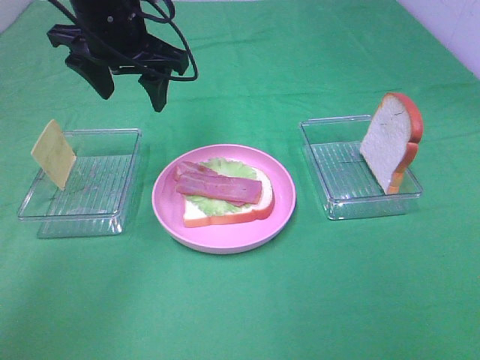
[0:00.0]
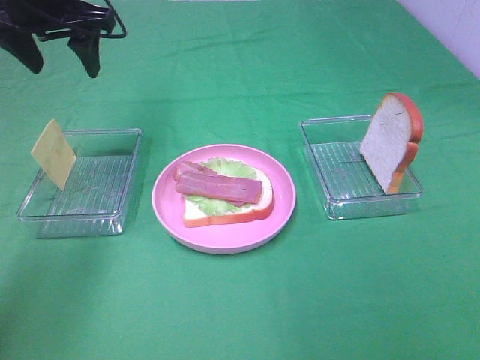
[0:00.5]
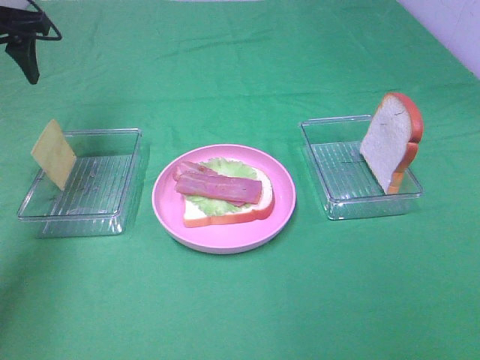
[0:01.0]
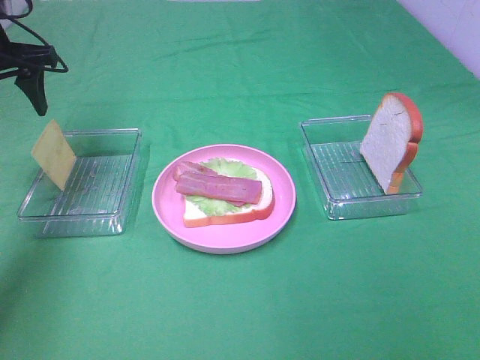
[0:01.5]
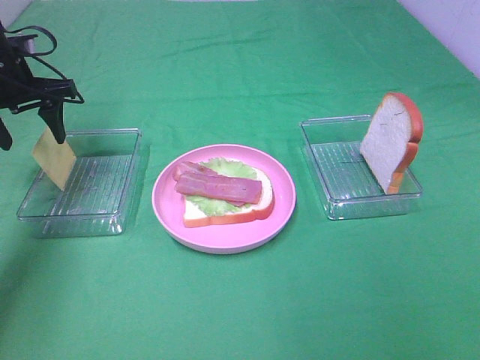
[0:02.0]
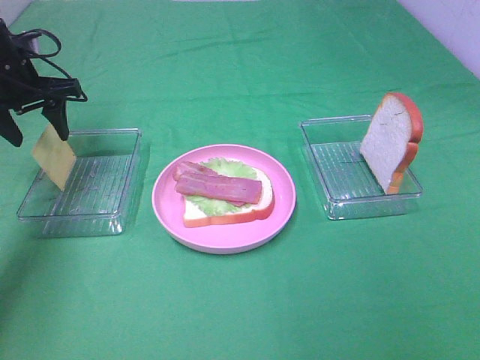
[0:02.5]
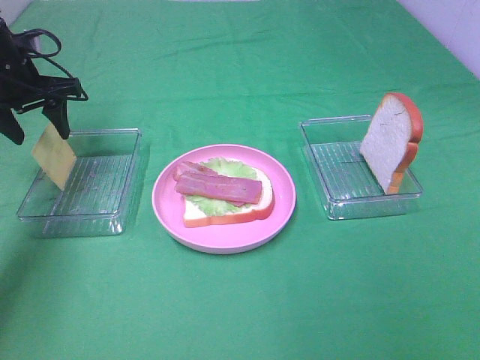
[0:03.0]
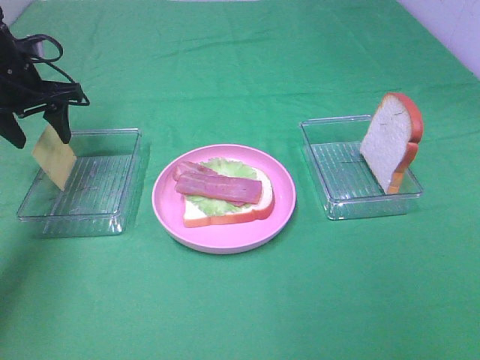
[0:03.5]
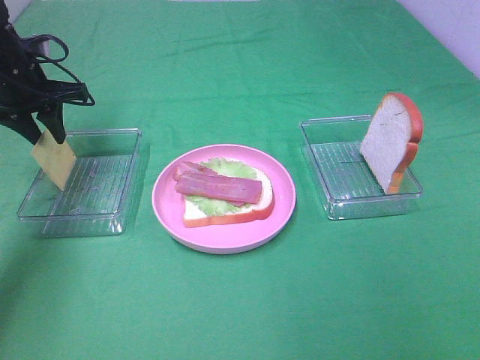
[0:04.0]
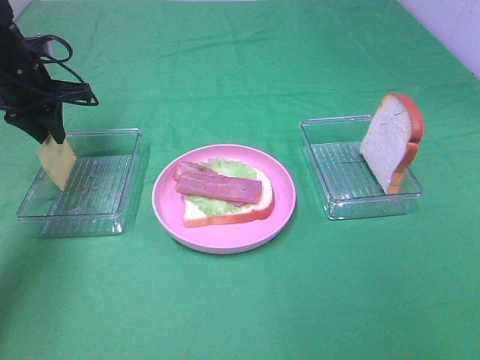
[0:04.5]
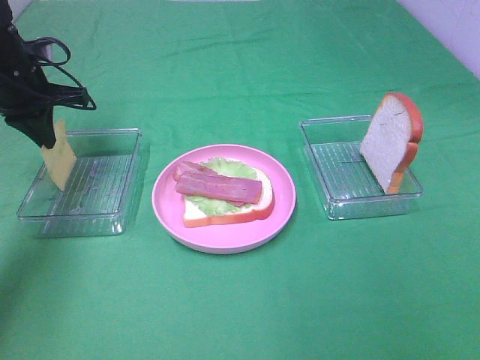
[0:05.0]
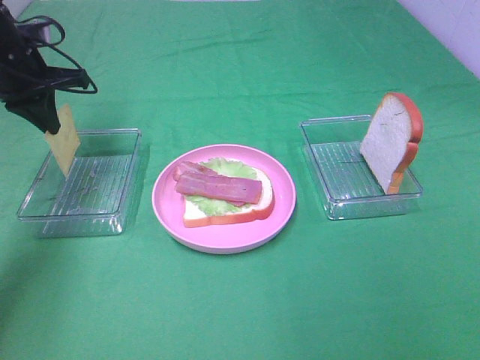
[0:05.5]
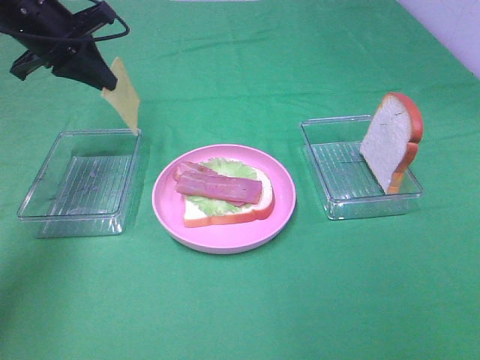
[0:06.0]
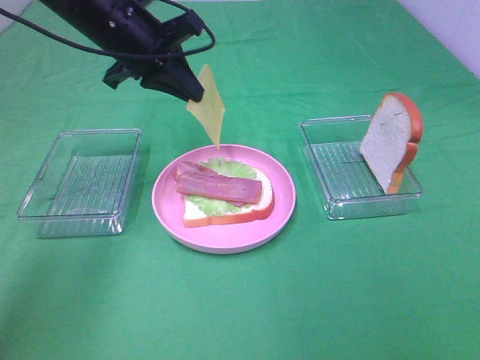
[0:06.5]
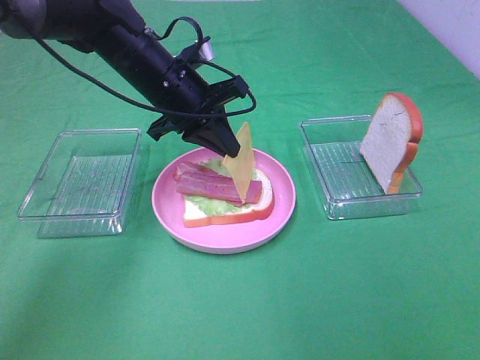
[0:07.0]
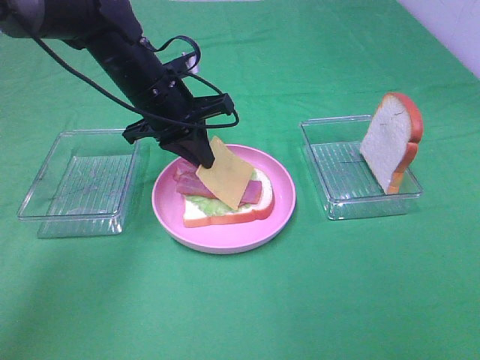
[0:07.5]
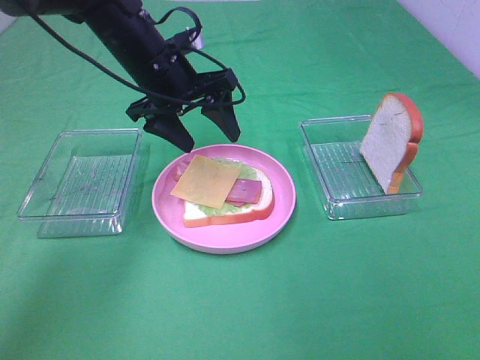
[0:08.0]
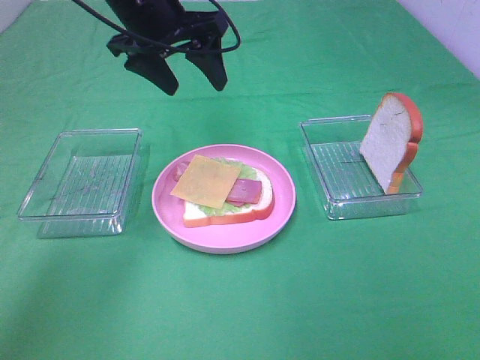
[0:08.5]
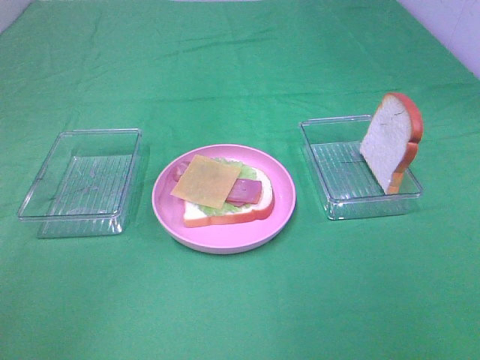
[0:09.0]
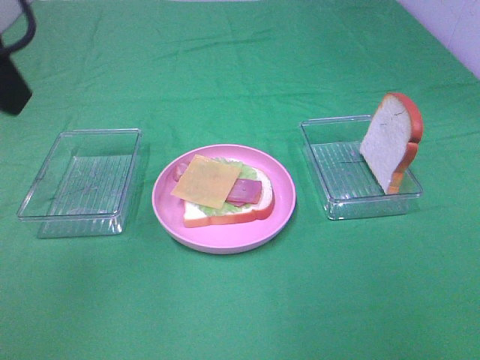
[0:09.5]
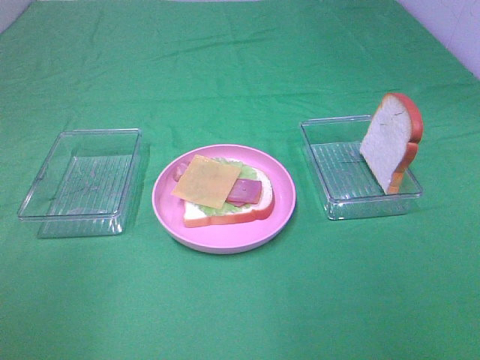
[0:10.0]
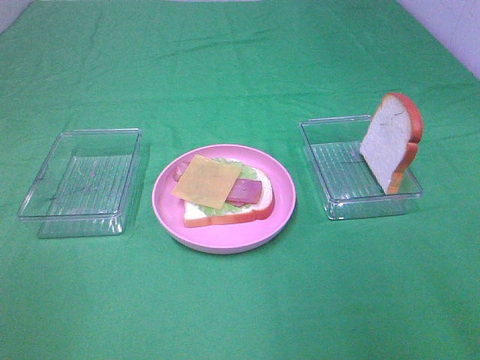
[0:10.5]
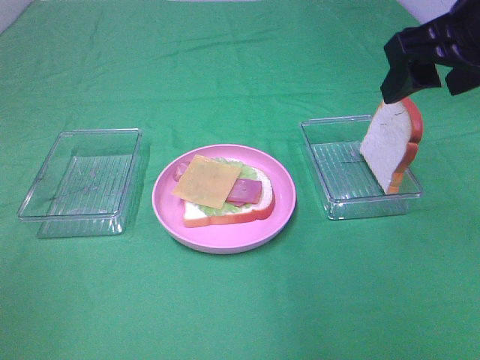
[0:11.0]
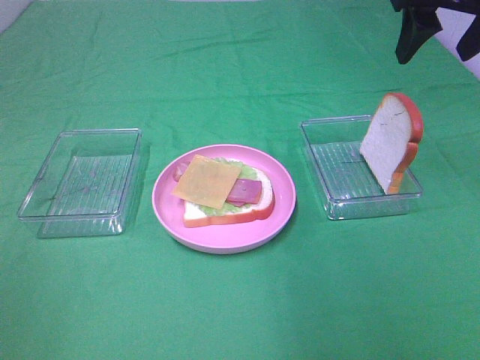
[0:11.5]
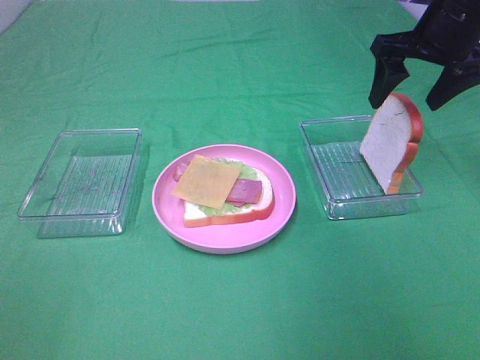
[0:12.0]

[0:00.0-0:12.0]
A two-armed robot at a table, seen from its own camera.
Task of the whole recording: Make sandwiches.
Step, 0:00.0 to 0:05.0: Left hand:grab the cheese slice.
Step, 0:05.5 to 0:08.0: Left hand:place the cheese slice on top of the bacon.
0:00.0 to 0:02.0: The left gripper moves to the left and downward, about 20 cm.
0:02.0 to 0:04.0: The left gripper closes up.
0:04.0 to 0:06.0: The left gripper heads upward and to the right, covering about 10 cm, and closes up.
0:06.0 to 0:08.0: The left gripper heads to the right, covering about 15 cm, and opens.
0:08.0 to 0:10.0: The left gripper heads backward and to the left, covering about 40 cm.
0:10.0 to 0:12.0: The right gripper shifts about 40 cm forward.

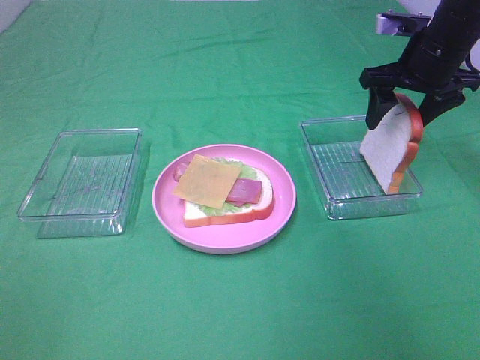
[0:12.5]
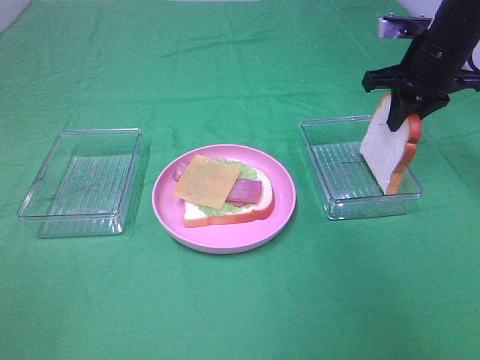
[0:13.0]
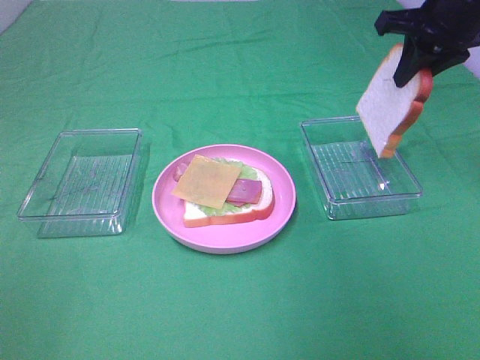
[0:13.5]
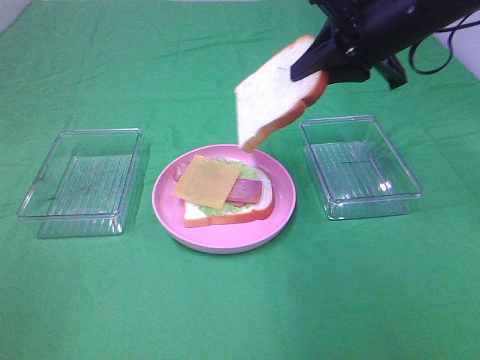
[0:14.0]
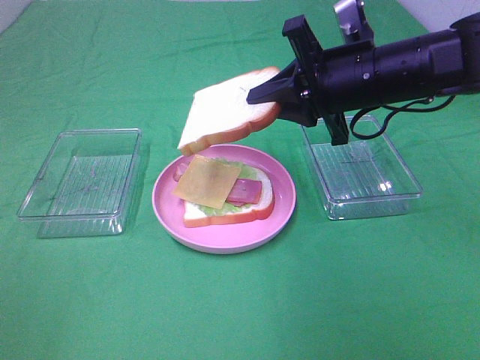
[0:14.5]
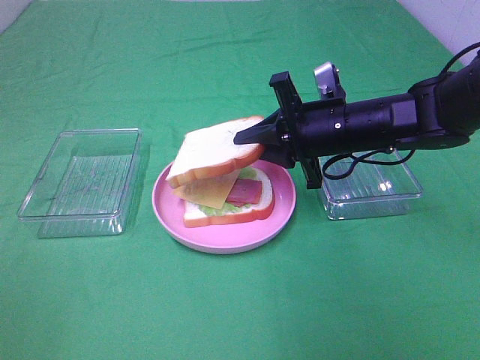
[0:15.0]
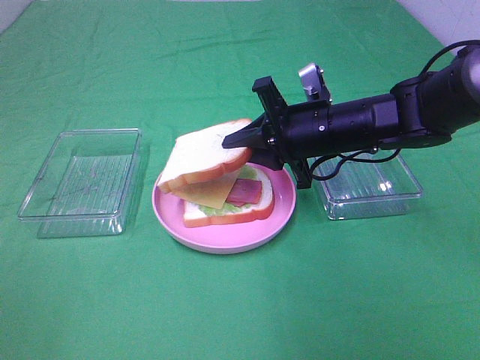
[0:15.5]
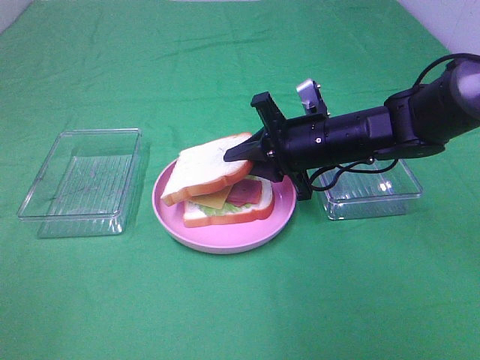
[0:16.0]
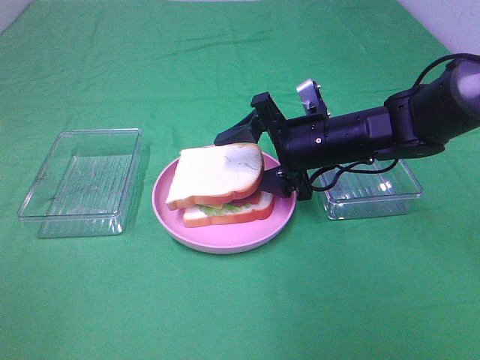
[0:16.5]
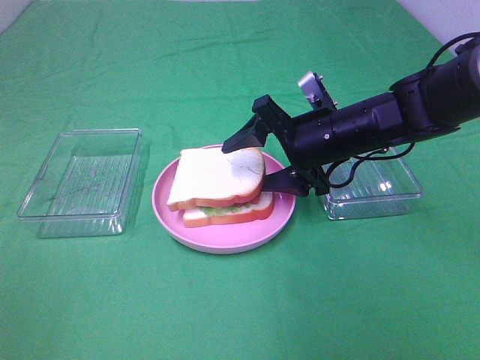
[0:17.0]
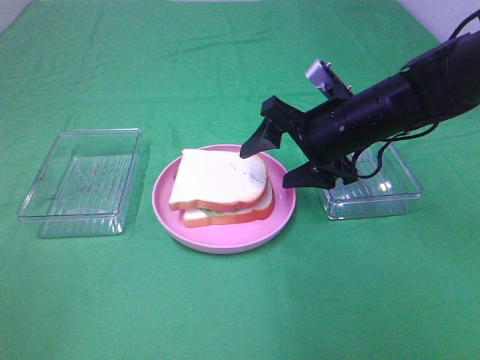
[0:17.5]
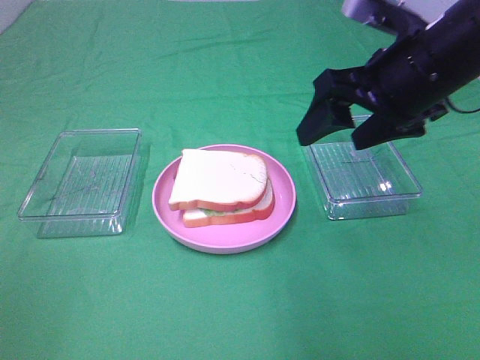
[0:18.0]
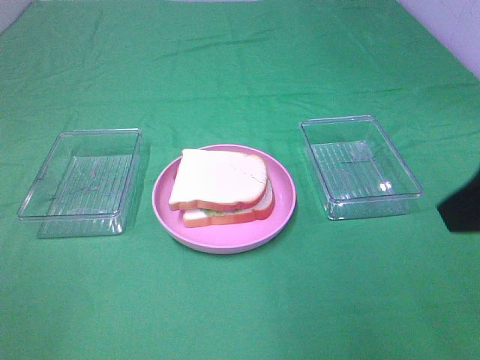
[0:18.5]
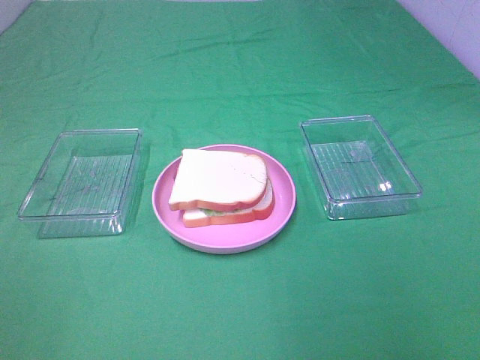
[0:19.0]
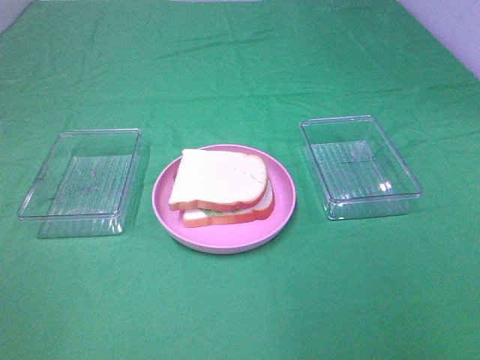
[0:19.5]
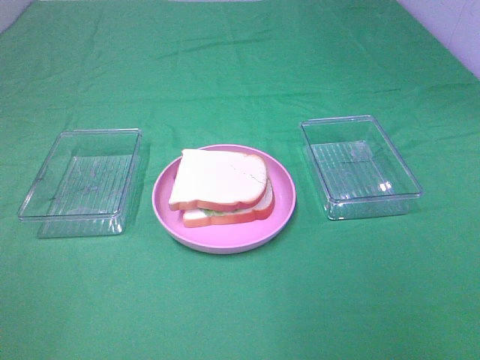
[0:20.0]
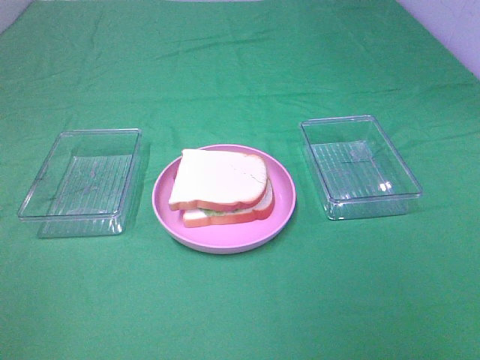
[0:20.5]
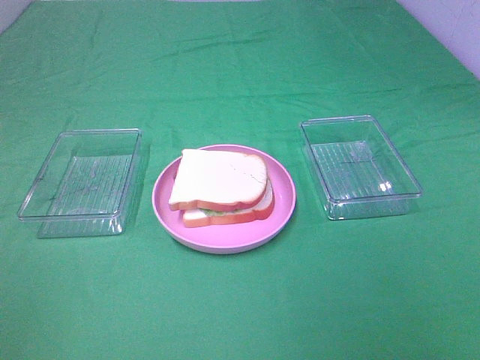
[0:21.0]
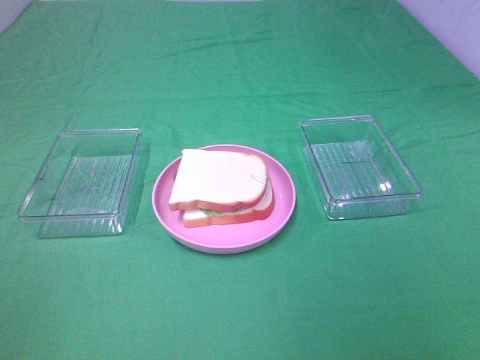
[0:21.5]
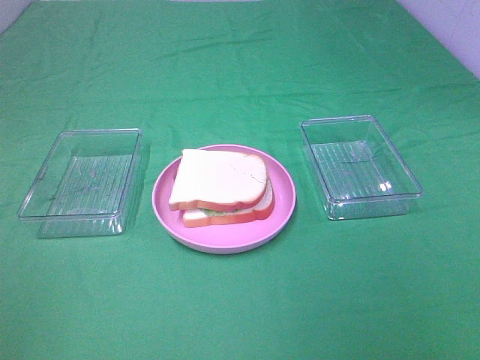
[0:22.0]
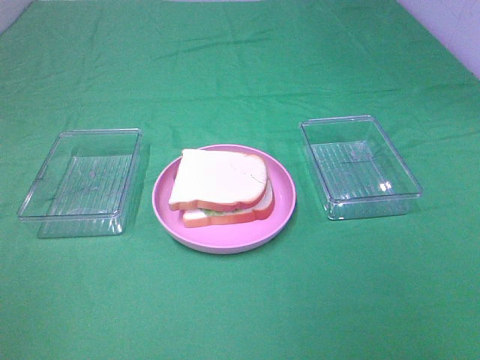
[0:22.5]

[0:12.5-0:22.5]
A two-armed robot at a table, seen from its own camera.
Task of the whole recording: Make sandwiches.
Step, 0:13.0 to 0:17.0: Right hand:place the bread slice on the cheese slice.
0:12.5 to 0:14.5: The right gripper goes some 15 cm to the left and backward, and closes its fingers.
0:14.5 to 0:16.5: The right gripper shifts about 10 cm downward, and opens.
0:16.5 to 0:18.5: The right gripper is displaced backward, upward and to the right by about 30 cm.
0:18.5 to 0:20.5: The right gripper shifts approximately 15 cm backward.

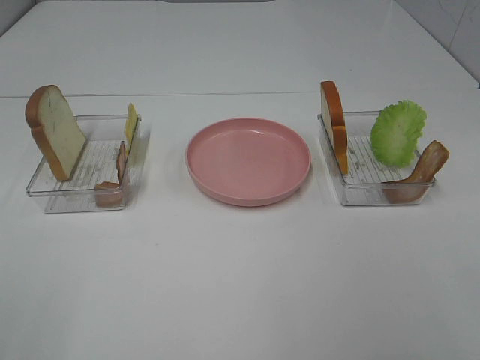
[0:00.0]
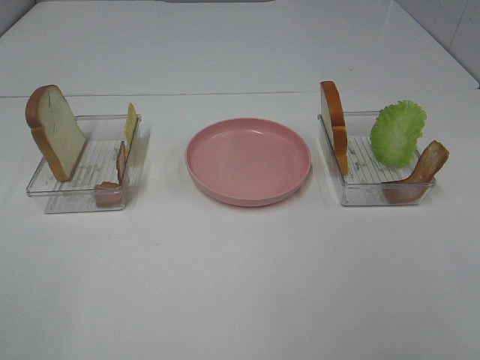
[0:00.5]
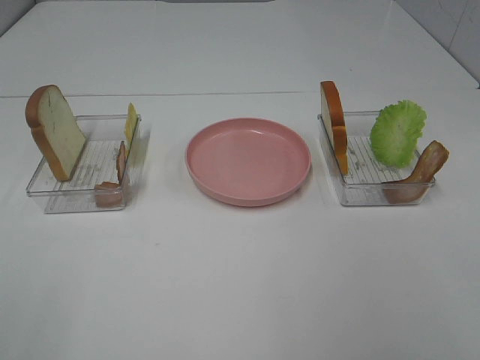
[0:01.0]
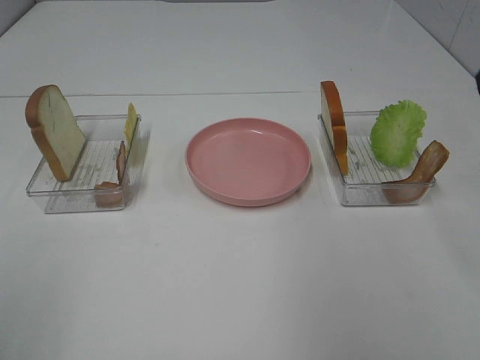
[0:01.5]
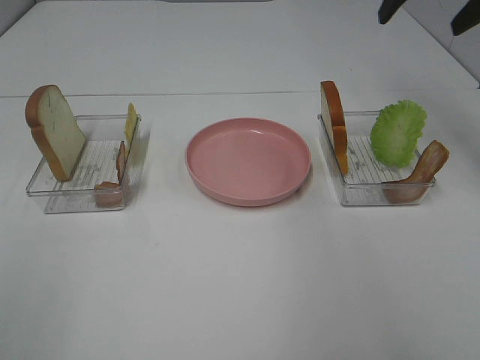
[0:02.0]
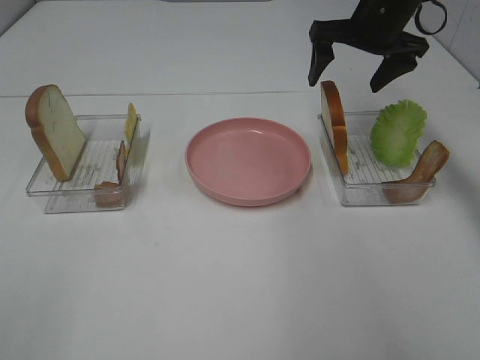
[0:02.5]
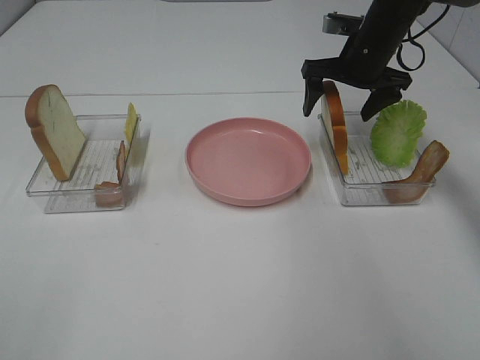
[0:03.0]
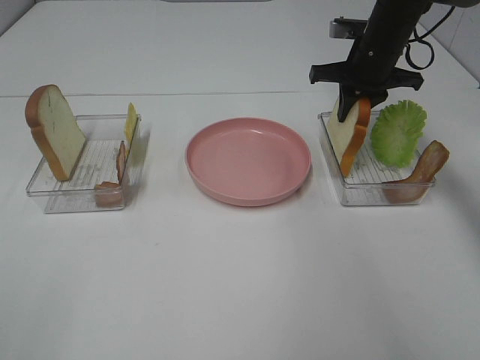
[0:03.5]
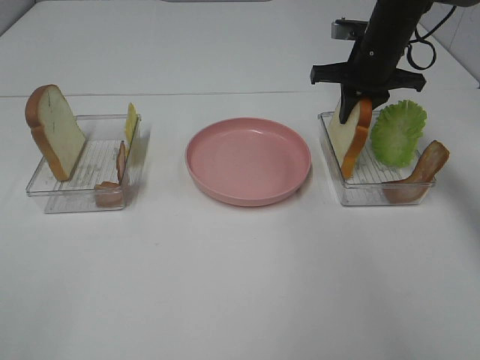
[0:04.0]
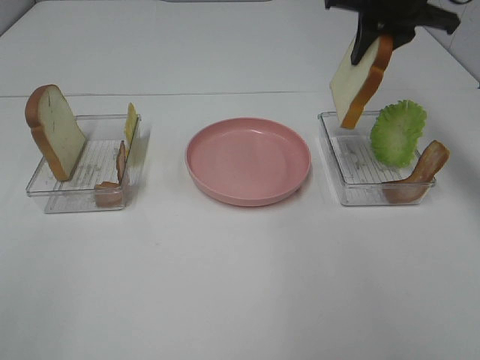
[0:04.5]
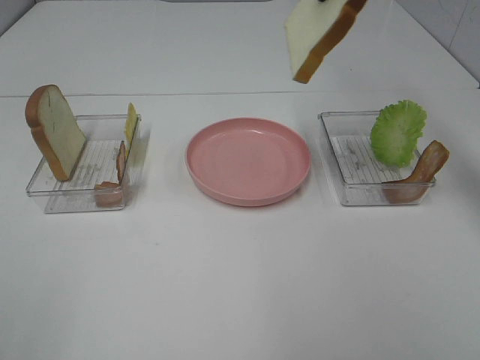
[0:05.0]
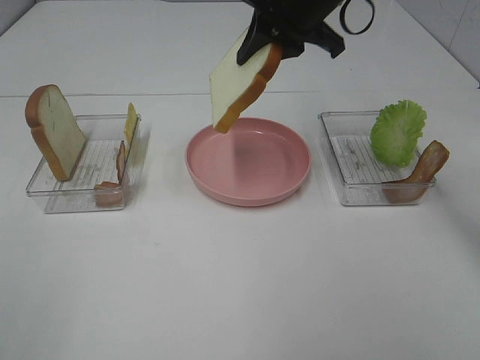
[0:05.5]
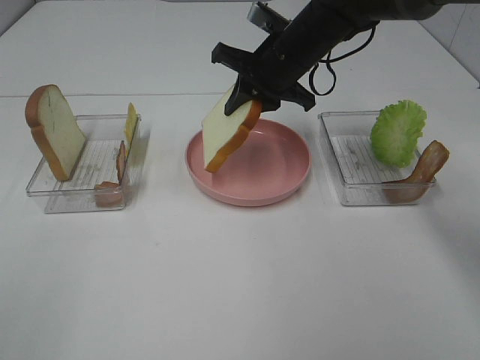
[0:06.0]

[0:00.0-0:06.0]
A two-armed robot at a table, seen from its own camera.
Task of the whole recording: Make sandwiches.
Step, 0:00.0 to 0:03.5: Right hand:grab the bread slice.
0:00.0 to 0:02.0: The right gripper goes some 40 cm forward.
0:02.0 to 0:04.0: The right gripper goes about 15 cm downward, and closes.
0:04.0 to 0:06.0: The right gripper travels to the left by some 10 cm, and moves about 20 cm upward and comes back.
